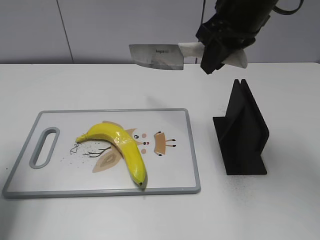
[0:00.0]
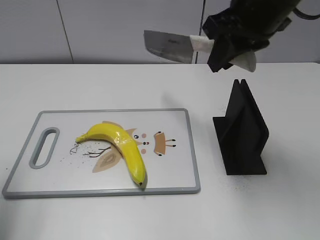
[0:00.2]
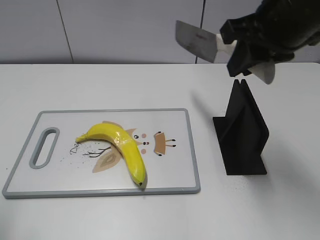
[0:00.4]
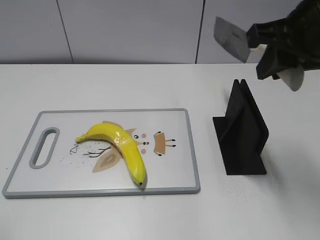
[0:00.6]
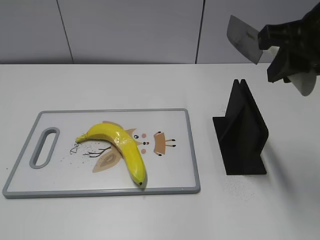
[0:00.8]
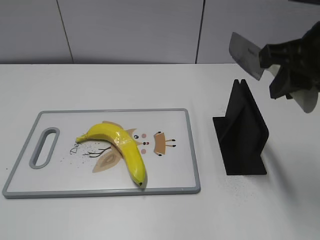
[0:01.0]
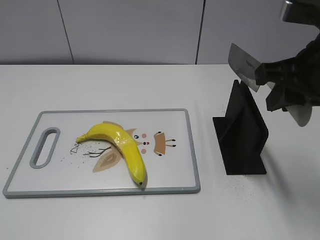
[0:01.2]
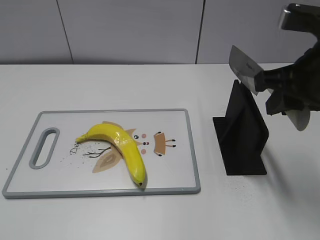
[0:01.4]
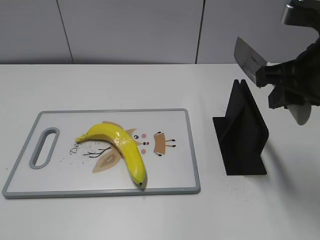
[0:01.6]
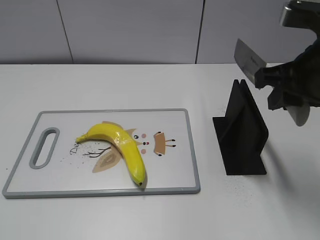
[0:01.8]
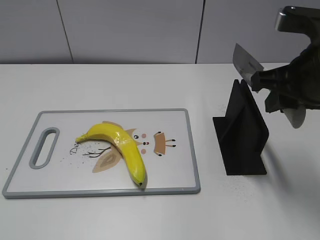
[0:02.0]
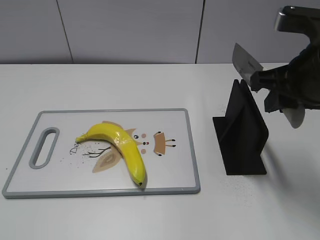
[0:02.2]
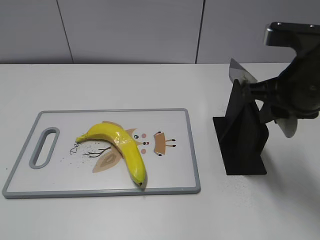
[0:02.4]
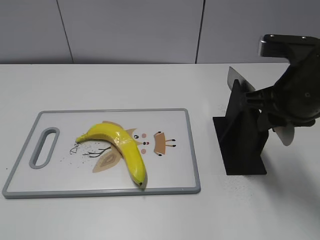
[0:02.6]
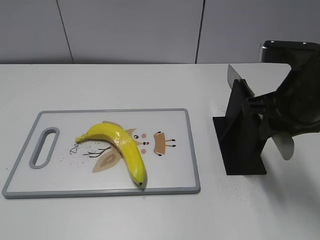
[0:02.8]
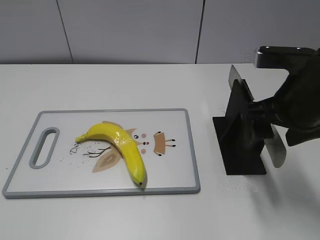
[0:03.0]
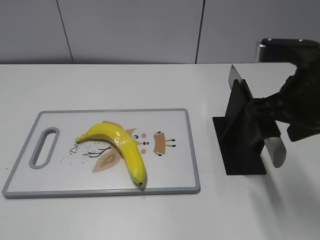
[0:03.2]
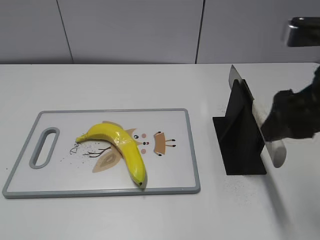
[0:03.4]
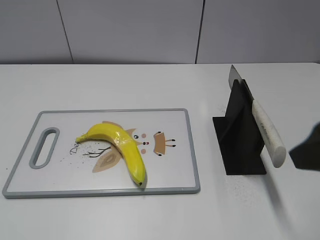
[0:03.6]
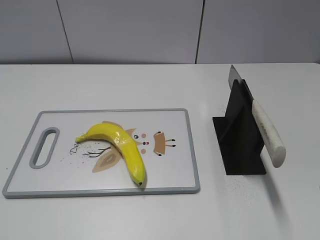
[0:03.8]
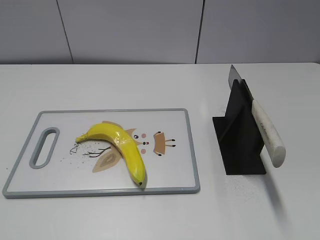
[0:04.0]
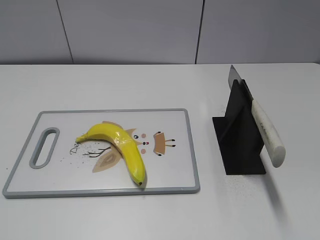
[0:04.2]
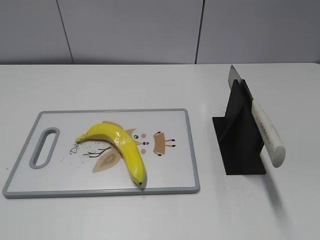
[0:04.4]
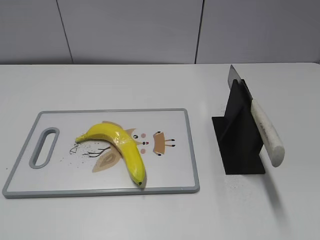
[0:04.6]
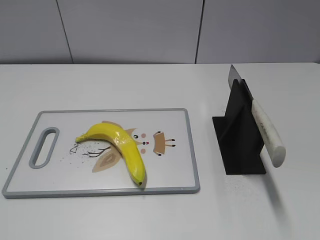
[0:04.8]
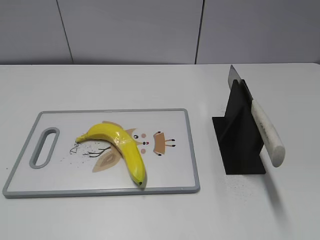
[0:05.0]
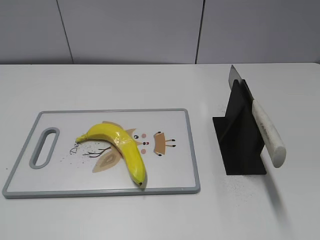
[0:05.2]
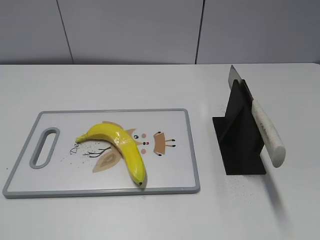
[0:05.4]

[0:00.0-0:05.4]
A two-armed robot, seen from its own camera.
Task of the whole recording: cut plastic banana.
Step, 0:00.2 to 0:01.0: Secure the blade with your left hand.
Step, 0:01.4 to 0:05.4: Place the knife on the storage rack with your right hand.
0:00.0 to 0:01.4: The left gripper moves backward, about 25 cm. The right gripper moves backward and to the right, about 15 cm.
0:01.4 to 0:02.8: The grippers move only a little.
0:02.8 to 0:04.0: The right gripper travels backward by some 20 cm, and opens.
